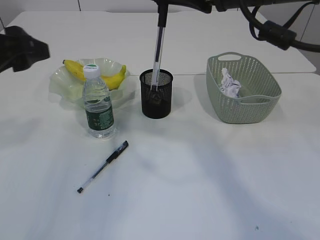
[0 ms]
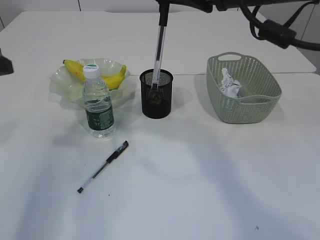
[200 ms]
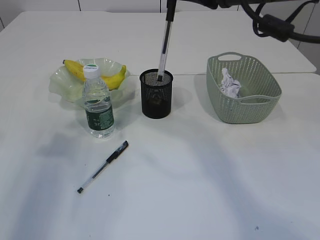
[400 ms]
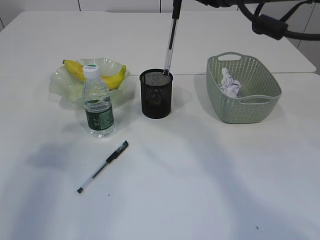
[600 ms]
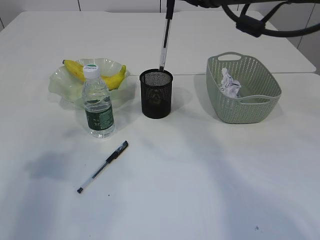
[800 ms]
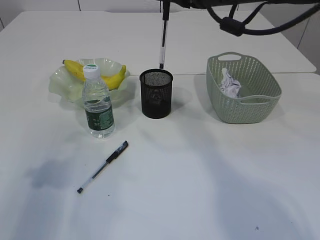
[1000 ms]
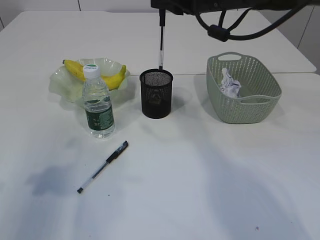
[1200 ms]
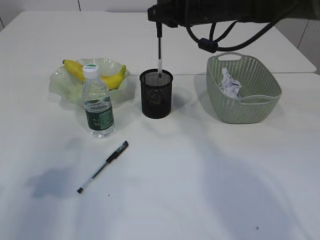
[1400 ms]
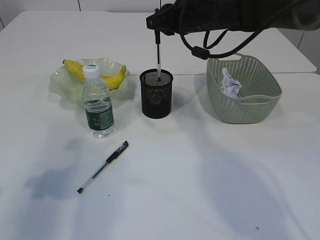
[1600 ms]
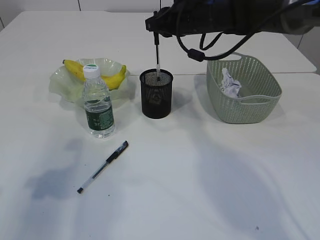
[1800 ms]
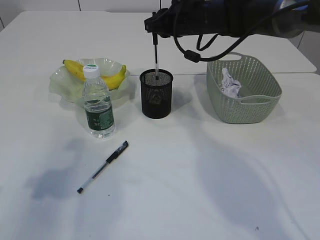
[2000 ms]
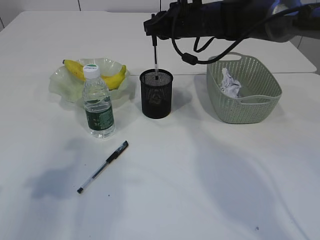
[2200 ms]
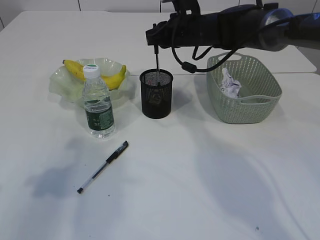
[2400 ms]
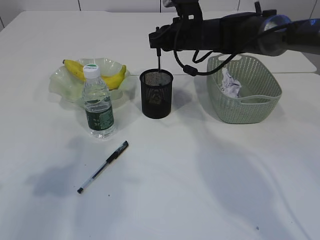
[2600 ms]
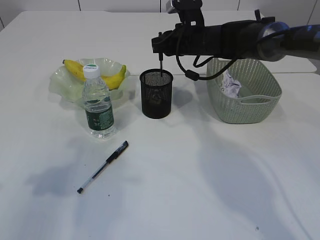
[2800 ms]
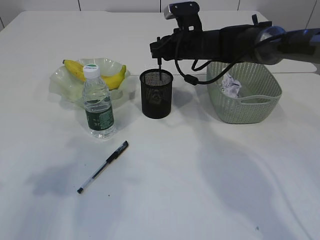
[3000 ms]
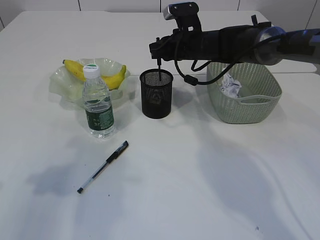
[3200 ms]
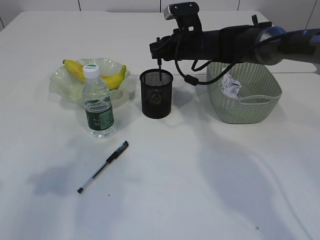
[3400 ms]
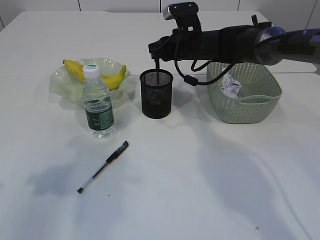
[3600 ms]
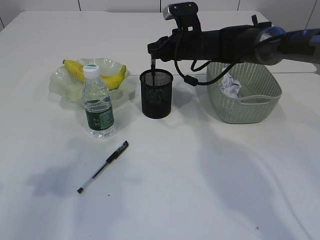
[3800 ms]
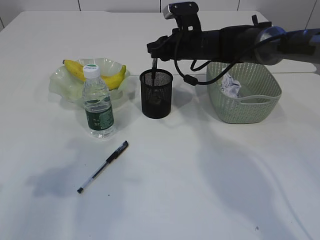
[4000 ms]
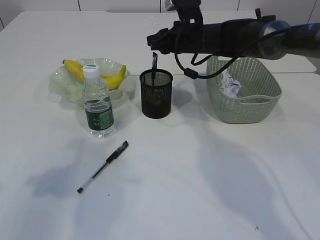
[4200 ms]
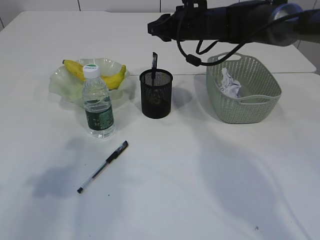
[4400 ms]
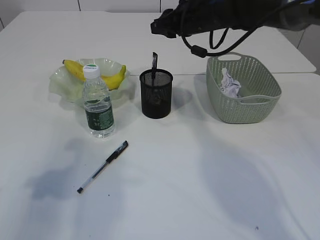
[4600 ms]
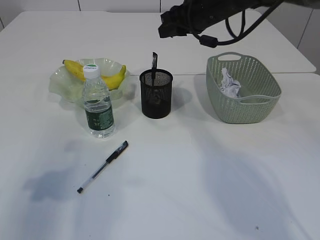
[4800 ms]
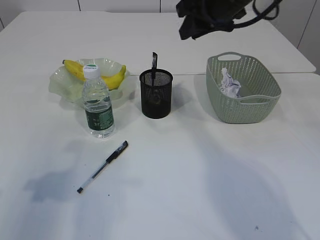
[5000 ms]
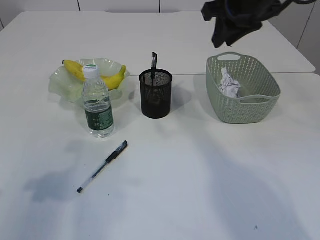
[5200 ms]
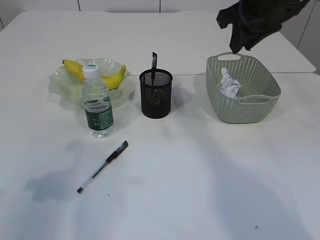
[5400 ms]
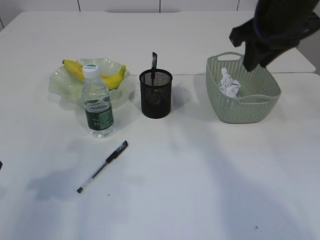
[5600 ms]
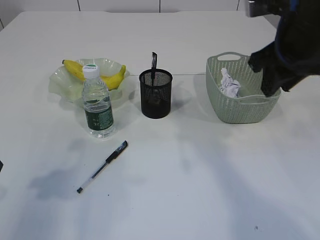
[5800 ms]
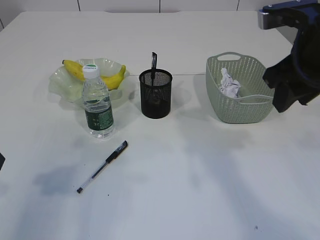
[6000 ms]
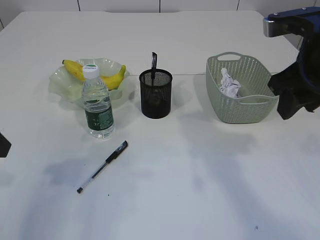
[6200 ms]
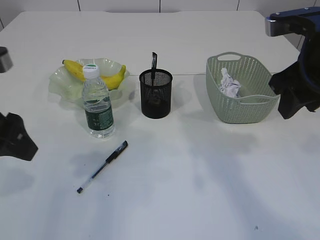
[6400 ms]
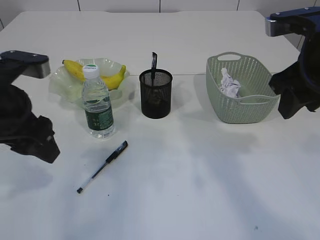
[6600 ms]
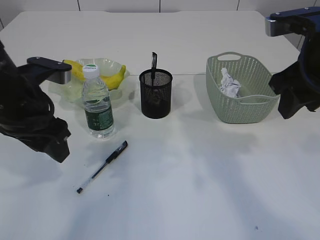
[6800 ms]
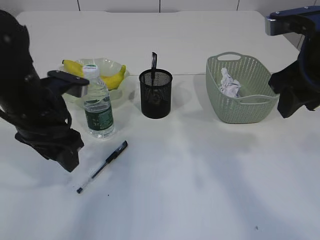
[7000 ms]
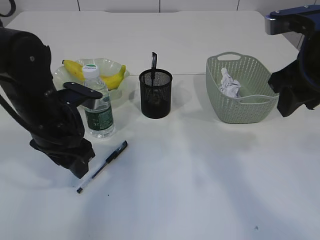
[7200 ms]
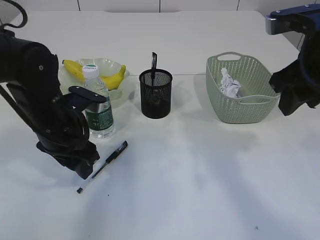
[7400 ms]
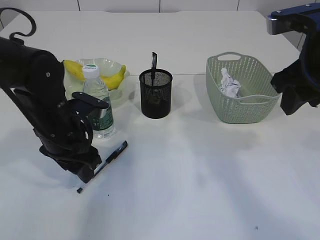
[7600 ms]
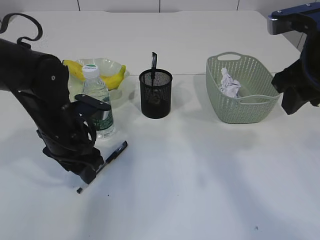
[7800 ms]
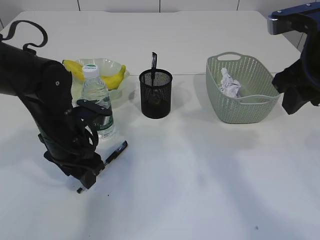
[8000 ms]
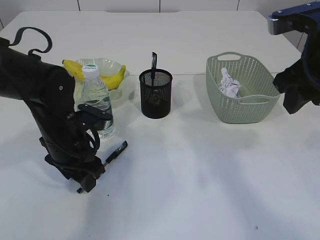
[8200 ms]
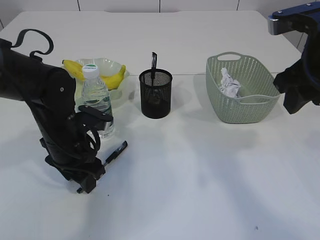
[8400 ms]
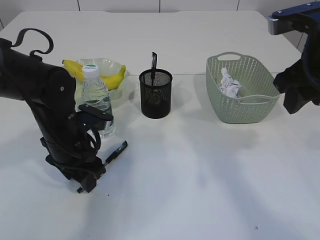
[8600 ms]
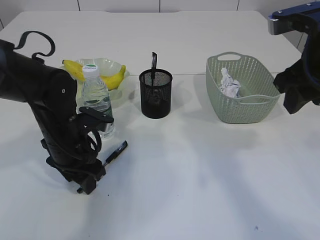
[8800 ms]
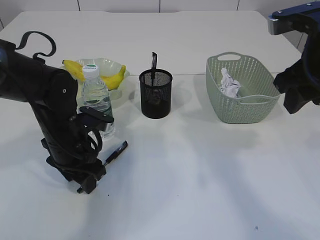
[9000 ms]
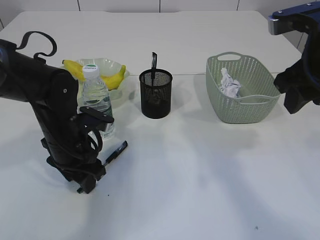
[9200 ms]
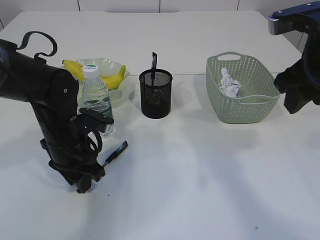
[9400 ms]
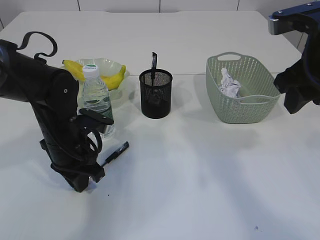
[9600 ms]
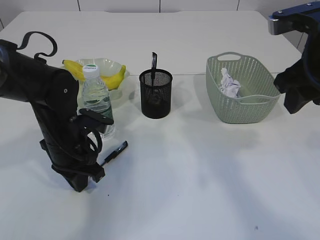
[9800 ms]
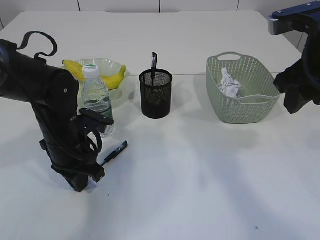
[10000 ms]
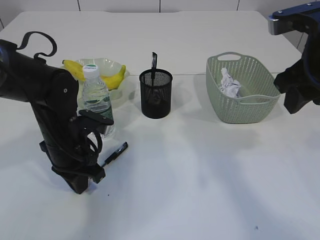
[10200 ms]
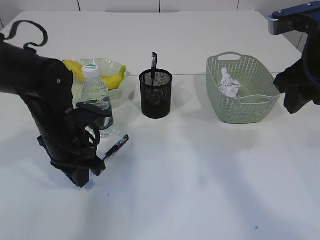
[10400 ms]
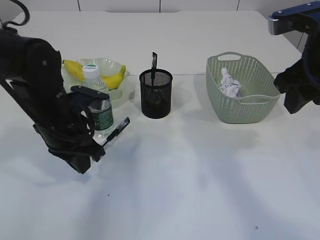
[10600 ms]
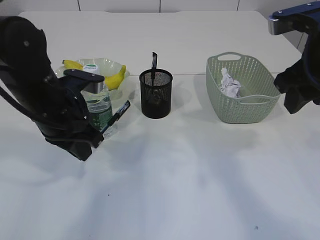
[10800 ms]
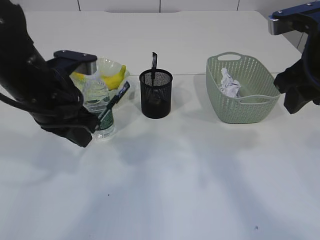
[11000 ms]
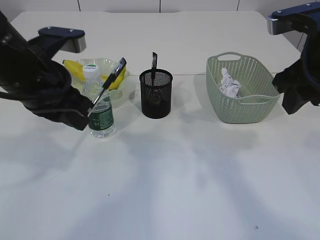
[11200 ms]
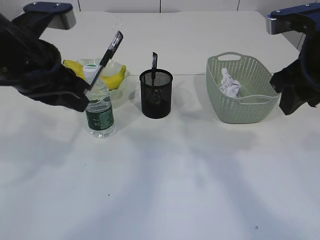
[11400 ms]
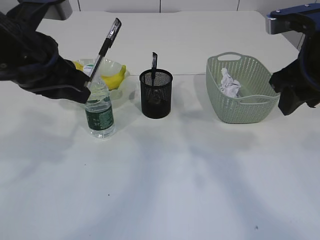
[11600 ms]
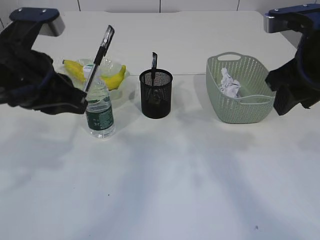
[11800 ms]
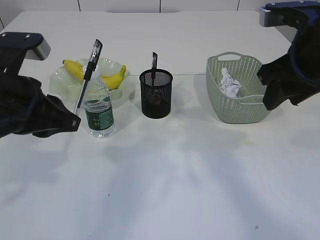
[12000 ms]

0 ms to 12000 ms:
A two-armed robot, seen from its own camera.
Step, 0 ms to 4400 ms: Place the pen into the pen holder.
Step, 4600 ms to 10800 ms: Pick up the pen with left arm.
0 ms to 1600 ms: The right gripper heads forward and downward, covering about 20 cm; the left gripper travels backward by roughly 5 cm.
1600 ms to 3000 ms: The right gripper moves downward and forward, about 10 cm.
3000 ms to 4400 ms: The grippers make only small movements.
4400 ms to 6000 ms: The right gripper is displaced backward and to the right by approximately 25 cm.
6000 ms to 7600 ms: The left gripper is displaced to the right, downward and forward by some 20 cm.
7600 ms to 9000 ms: The grippers stay close to where they were, moving slightly.
9000 ms to 10400 ms: The left gripper closes up.
10400 ms to 12000 ms: The left gripper moves upward and backward, approximately 15 cm.

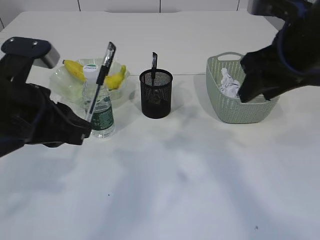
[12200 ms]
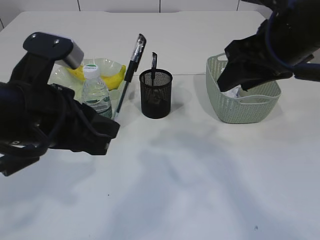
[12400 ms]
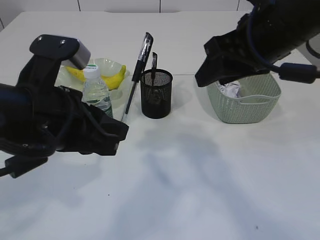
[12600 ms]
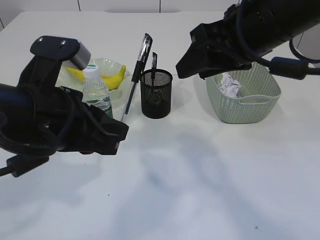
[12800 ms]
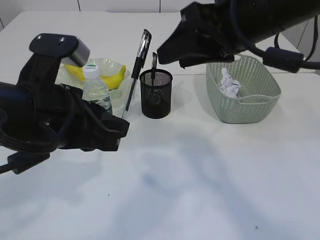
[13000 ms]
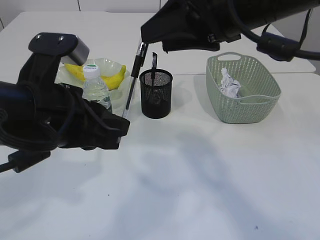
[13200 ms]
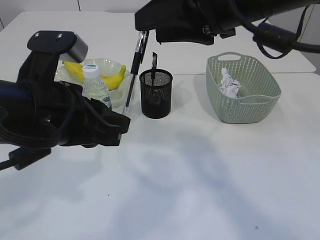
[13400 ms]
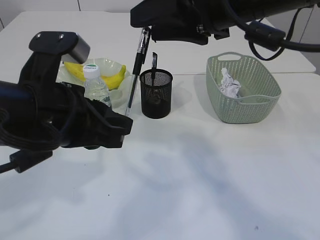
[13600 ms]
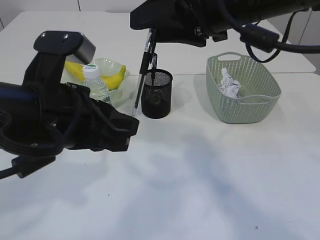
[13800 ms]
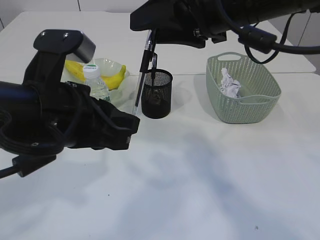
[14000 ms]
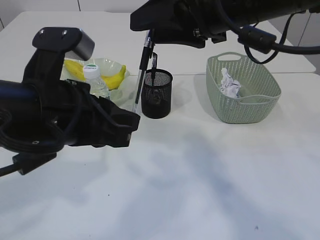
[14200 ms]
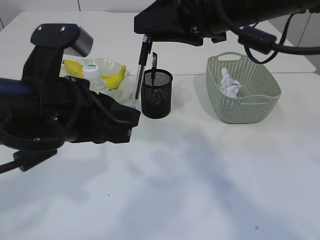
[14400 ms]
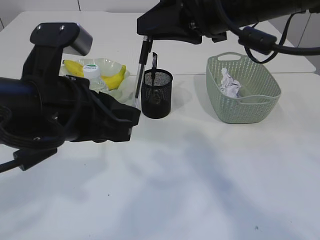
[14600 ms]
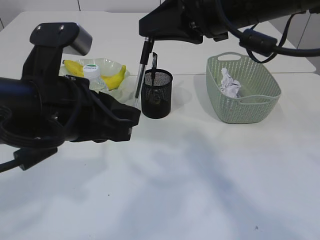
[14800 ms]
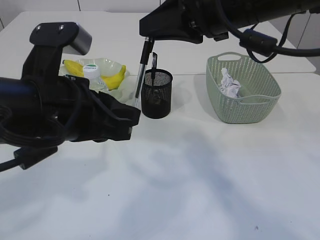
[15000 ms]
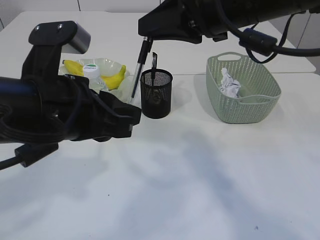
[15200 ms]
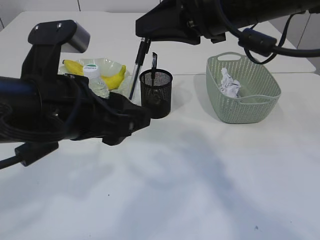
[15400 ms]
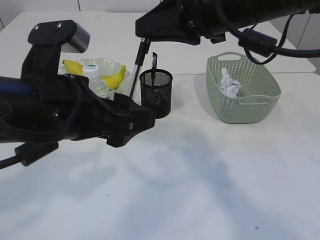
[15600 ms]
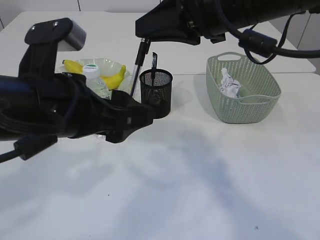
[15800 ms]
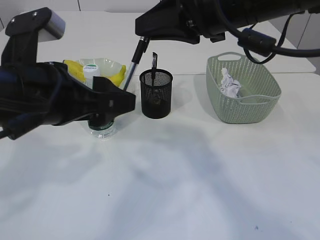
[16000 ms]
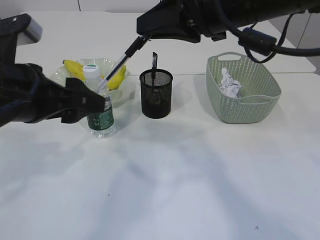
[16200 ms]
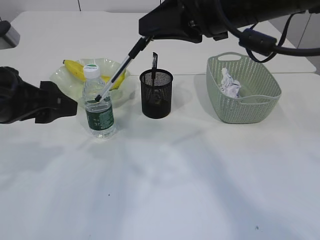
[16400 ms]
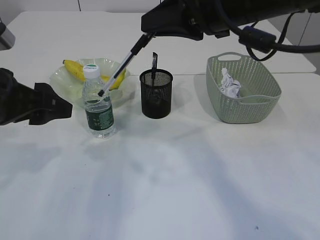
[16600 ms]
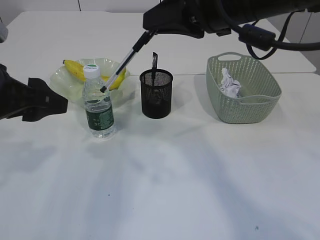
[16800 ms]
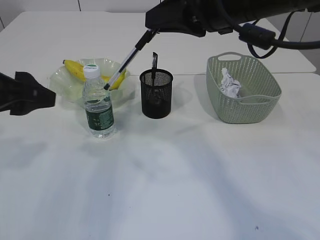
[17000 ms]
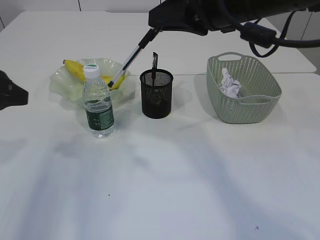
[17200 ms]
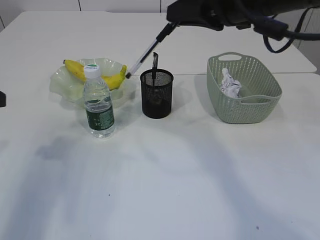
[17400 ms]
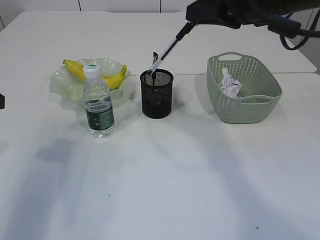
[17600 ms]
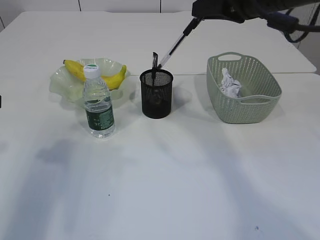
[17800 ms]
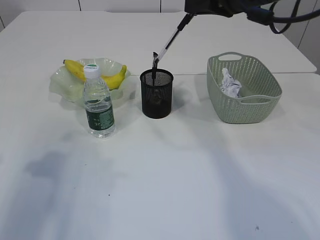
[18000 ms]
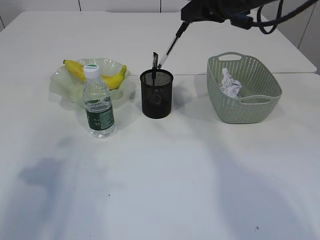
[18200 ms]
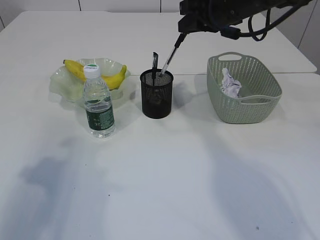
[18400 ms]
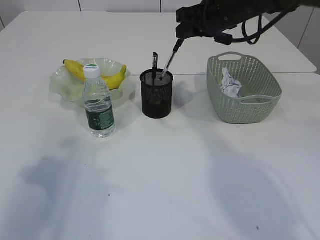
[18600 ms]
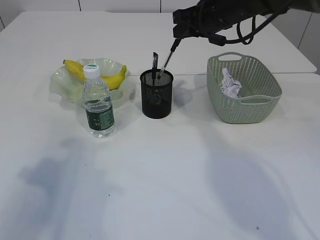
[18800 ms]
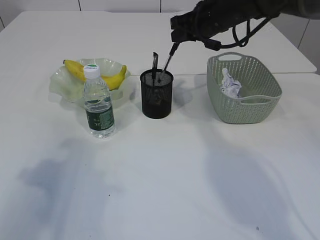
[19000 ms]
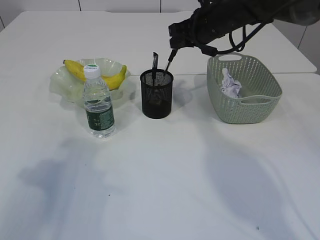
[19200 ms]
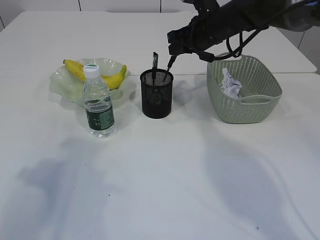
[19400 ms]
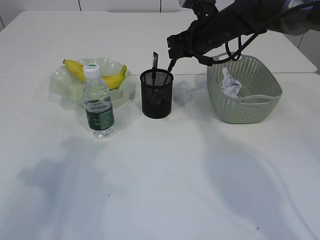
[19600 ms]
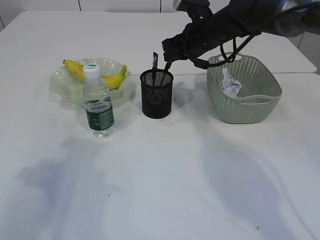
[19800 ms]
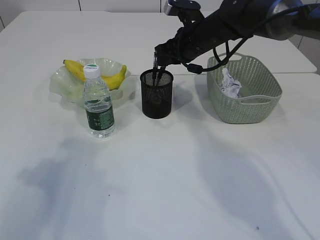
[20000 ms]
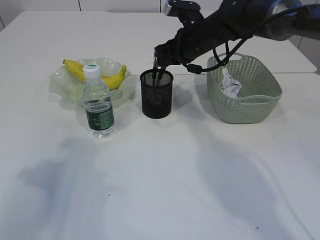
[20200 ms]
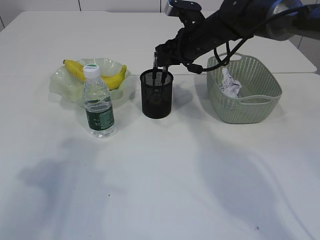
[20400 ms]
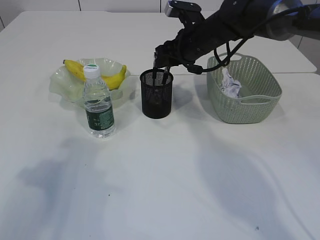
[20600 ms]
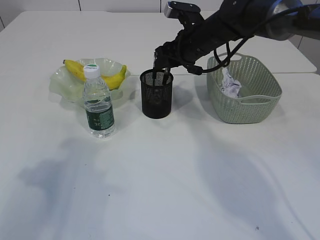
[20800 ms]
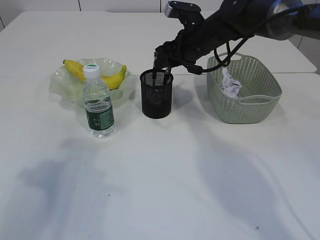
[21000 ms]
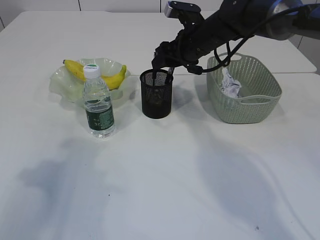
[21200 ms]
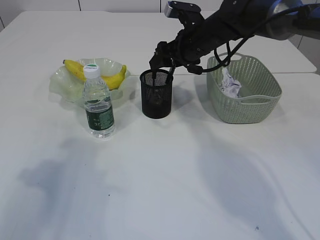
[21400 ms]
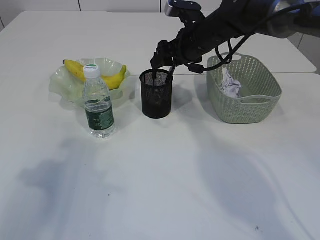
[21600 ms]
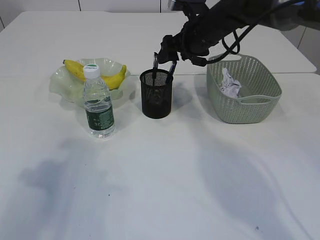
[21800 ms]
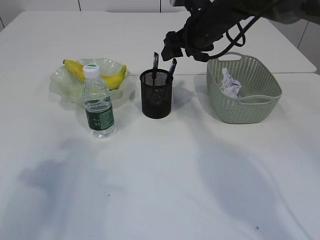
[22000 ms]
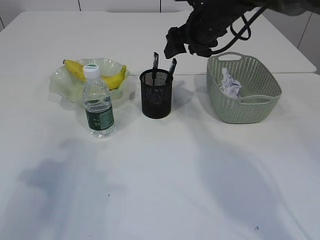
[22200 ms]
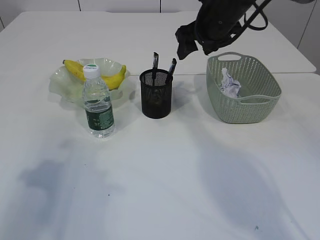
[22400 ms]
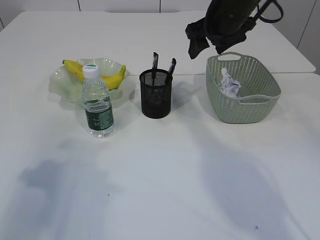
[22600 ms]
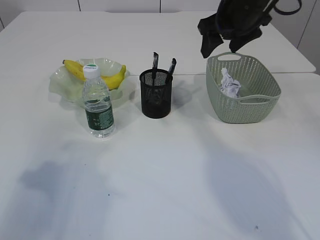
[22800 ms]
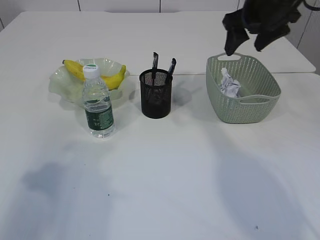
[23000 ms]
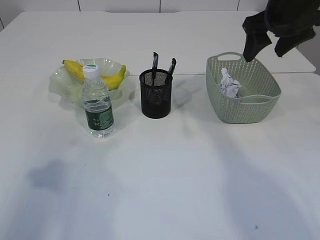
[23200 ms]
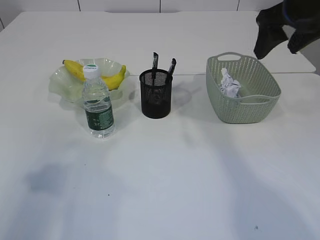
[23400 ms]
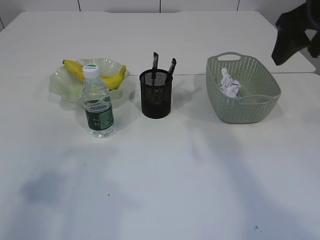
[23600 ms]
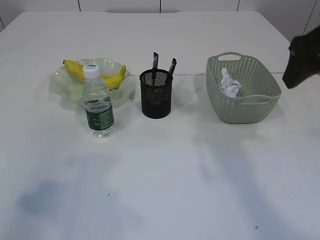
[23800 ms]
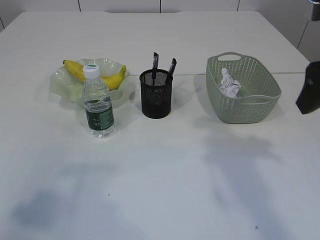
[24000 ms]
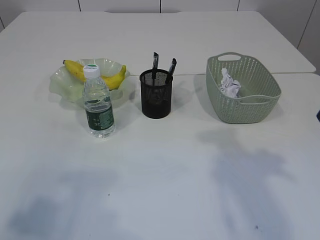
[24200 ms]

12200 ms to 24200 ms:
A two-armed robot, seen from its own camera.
Step, 12200 ms to 16600 ms: transfer the pen to the right arm.
Step, 16800 ms to 22000 ms: Place the pen into the pen holder.
12200 ms to 13800 ms: The right gripper goes about 10 cm to the left, while the left gripper is displaced to the right by roughly 5 cm.
13800 ms to 15200 ms: The right gripper closes.
15200 ms to 16600 ms: The left gripper heads to the left, covering some 10 cm, and opens its fingers.
16600 ms to 18200 ms: The left gripper moves to the left, about 10 cm. The right gripper shifts about 10 cm forward.
18200 ms to 19800 ms: The right gripper travels downward and forward by about 15 cm.
19800 ms to 21200 ms: The right gripper opens up.
21200 ms to 22600 ms: The right gripper shifts approximately 5 cm upward.
22600 ms to 24200 ms: The right gripper travels backward and to the right by roughly 25 cm. Meanwhile the left gripper heads backward and upward, covering some 15 cm.
